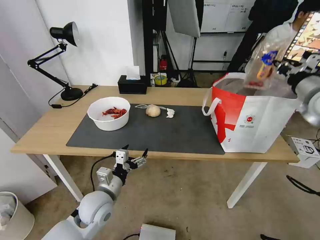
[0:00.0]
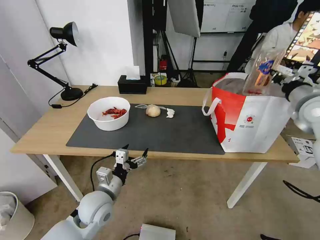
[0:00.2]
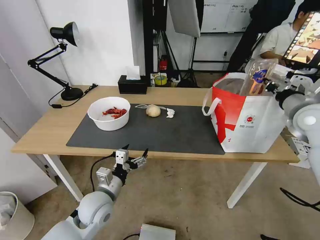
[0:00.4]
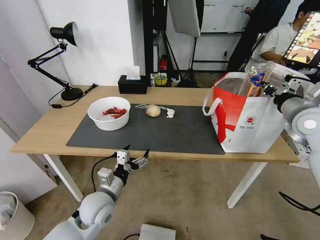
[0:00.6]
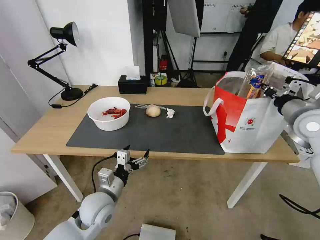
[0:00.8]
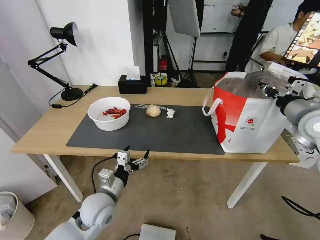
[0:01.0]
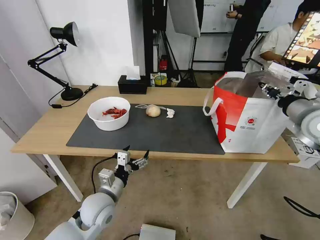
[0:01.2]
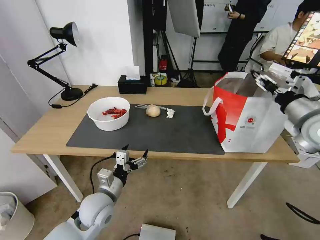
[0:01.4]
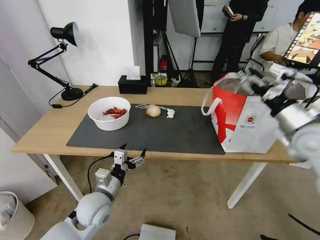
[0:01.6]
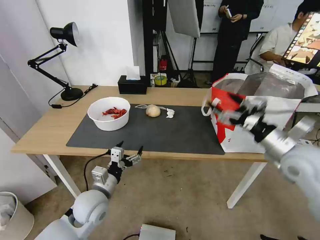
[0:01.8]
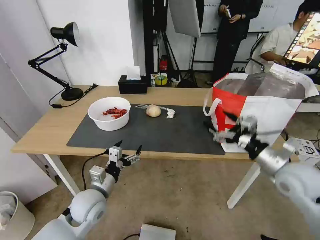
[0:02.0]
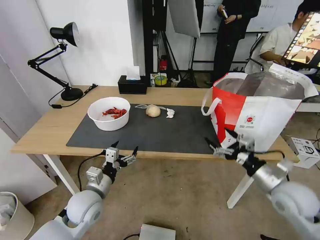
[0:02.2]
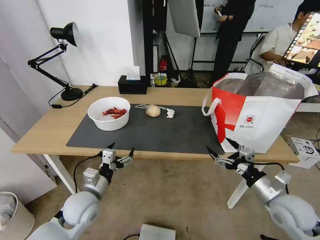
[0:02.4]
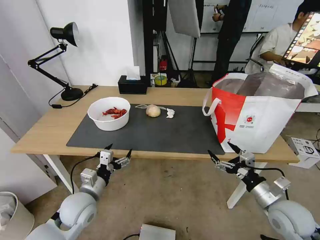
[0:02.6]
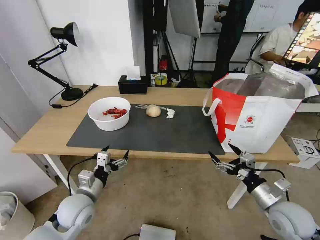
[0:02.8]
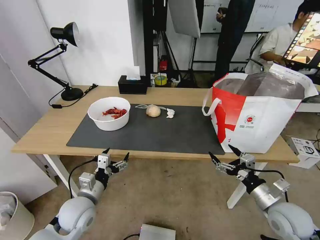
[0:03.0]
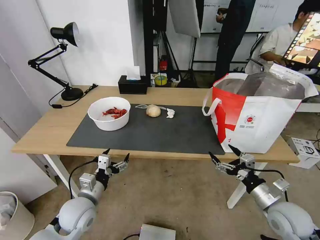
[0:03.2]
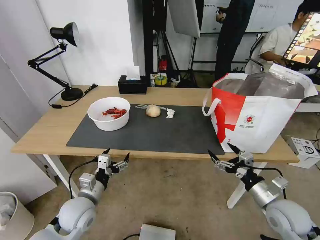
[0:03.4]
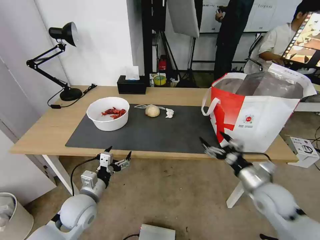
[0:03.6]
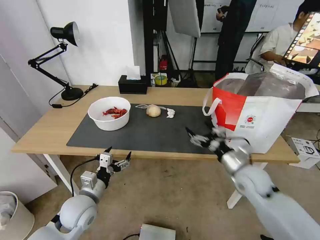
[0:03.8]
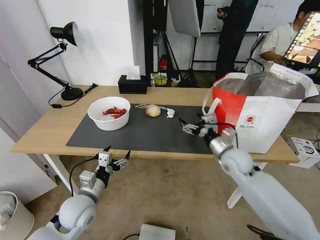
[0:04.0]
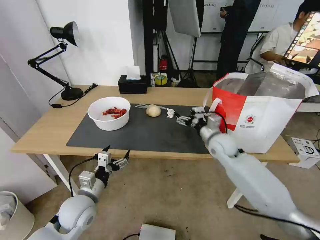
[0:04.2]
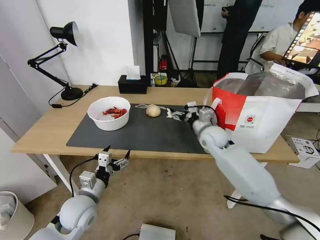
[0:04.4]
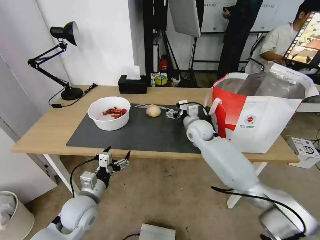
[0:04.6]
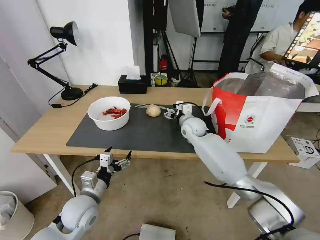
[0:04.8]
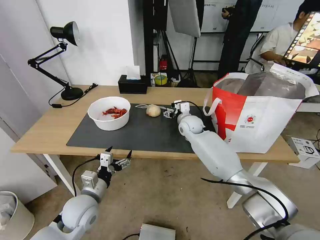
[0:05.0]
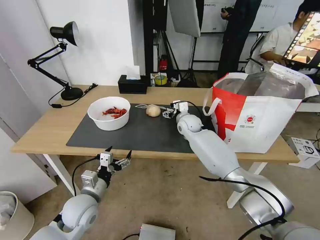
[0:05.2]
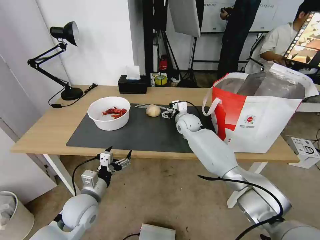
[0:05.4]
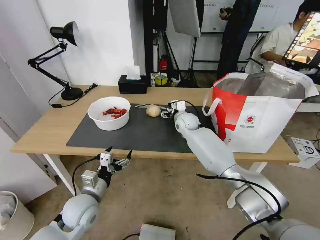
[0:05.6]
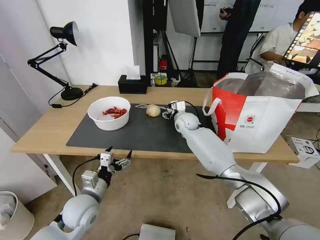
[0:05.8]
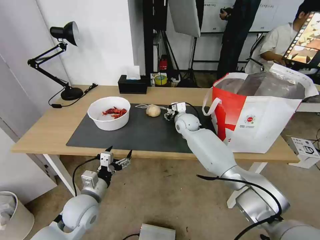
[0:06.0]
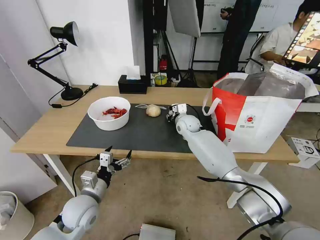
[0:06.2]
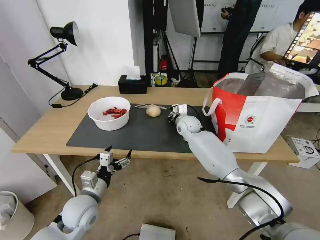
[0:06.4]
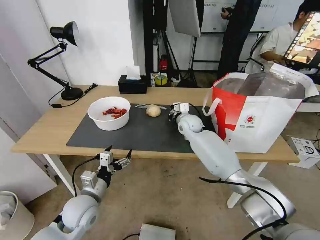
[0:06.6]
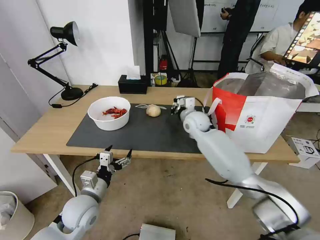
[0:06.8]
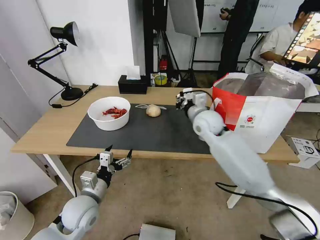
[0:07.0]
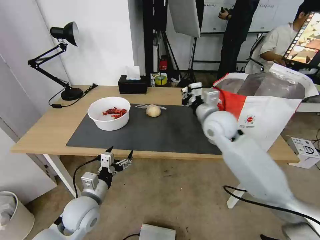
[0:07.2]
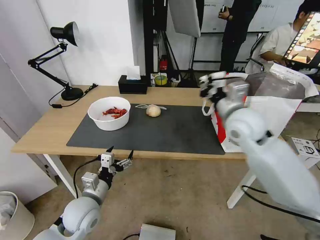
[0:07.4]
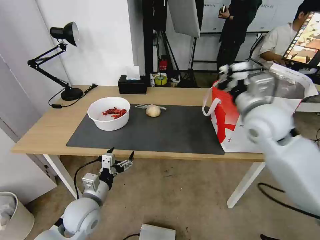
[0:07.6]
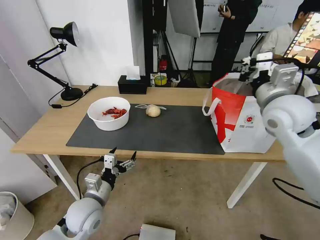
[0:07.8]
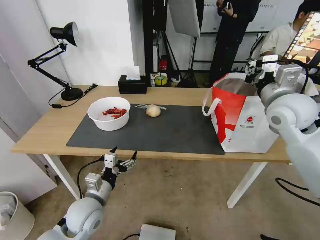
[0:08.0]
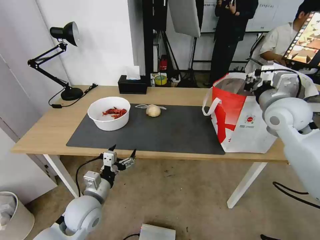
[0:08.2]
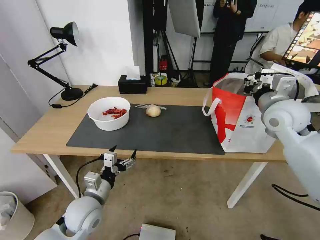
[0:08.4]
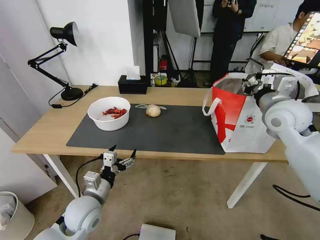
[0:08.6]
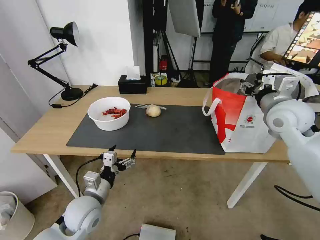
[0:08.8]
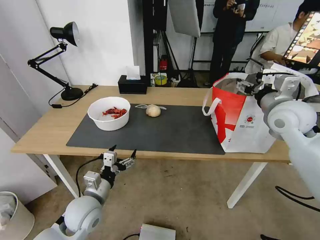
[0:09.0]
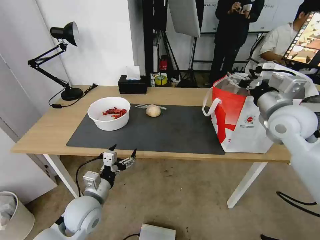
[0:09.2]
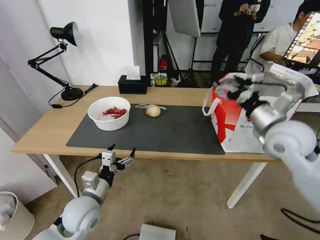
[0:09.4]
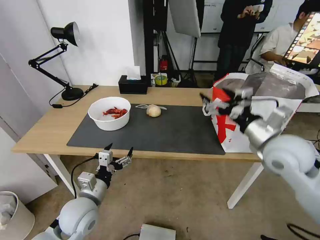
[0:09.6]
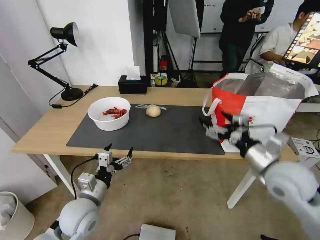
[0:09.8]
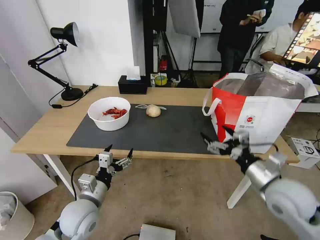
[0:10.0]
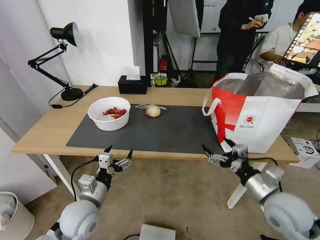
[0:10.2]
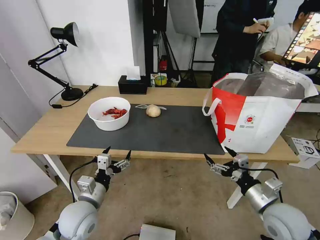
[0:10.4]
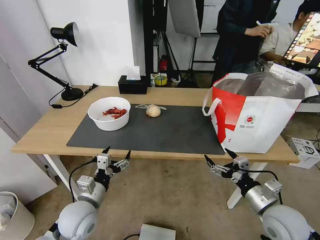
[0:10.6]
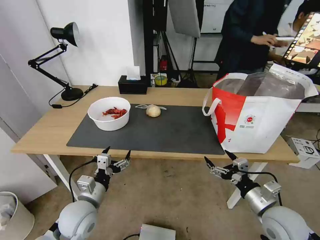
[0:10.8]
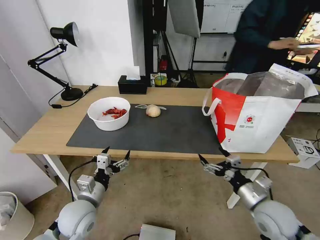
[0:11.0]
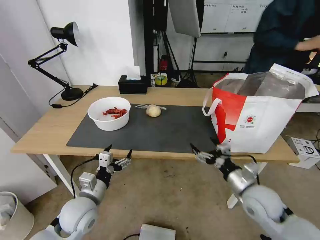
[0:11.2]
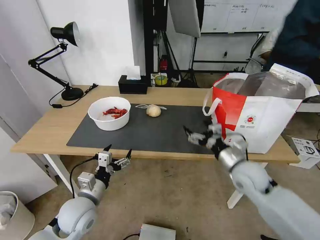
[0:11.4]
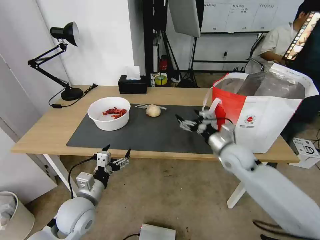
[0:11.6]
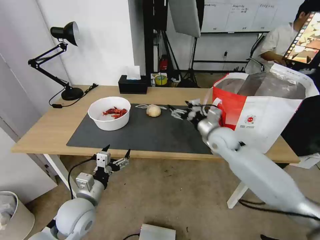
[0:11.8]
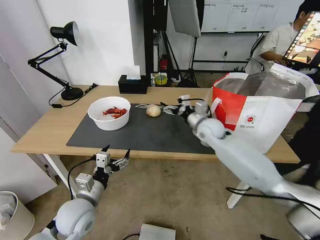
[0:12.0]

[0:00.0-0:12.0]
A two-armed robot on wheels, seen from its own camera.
Task of the whole recording: Pick up the trash from the table and place it into the takeout bag.
0:00.0 to 0:01.6: The right gripper travels backward, downward and to the left by about 10 cm, and opens up.
0:01.6 to 0:03.0: The left gripper is displaced to the left by about 5 cm, while the right gripper shifts approximately 25 cm downward and backward.
0:03.0 to 0:04.4: The right gripper moves forward and to the left, some 30 cm.
0:04.4 to 0:06.0: The right gripper shifts approximately 10 cm forward and to the left, and closes up.
0:06.0 to 0:07.6: The right gripper travels upward, backward and to the right by about 30 cm, and closes.
0:07.6 to 0:09.0: The right gripper is displaced to the right by about 5 cm, and opens up.
0:09.0 to 0:10.4: The right gripper travels downward and backward by about 30 cm.
0:10.4 to 0:12.0: The right gripper is displaced forward and to the left by about 30 cm.

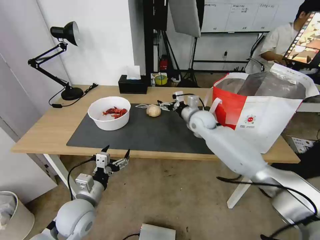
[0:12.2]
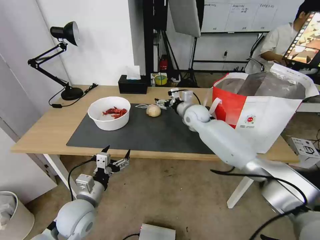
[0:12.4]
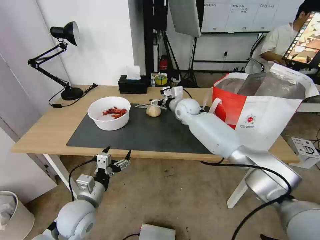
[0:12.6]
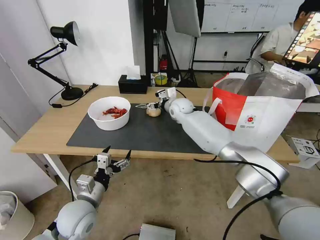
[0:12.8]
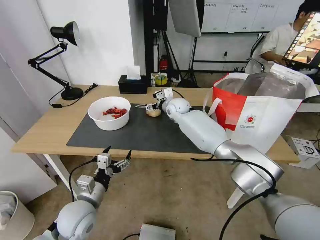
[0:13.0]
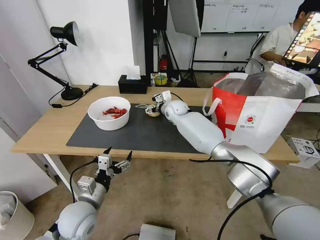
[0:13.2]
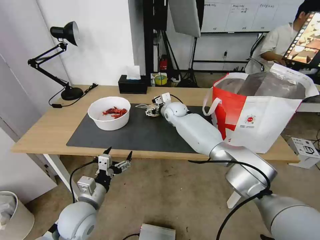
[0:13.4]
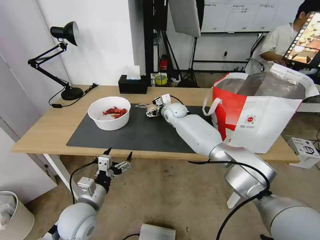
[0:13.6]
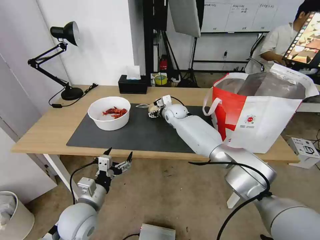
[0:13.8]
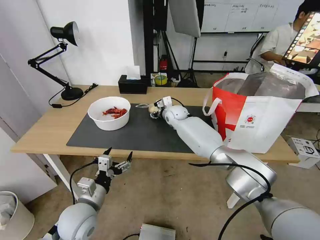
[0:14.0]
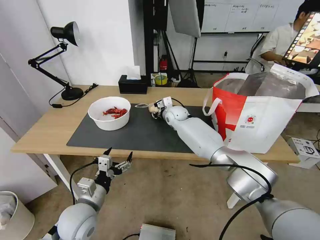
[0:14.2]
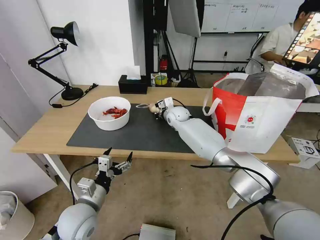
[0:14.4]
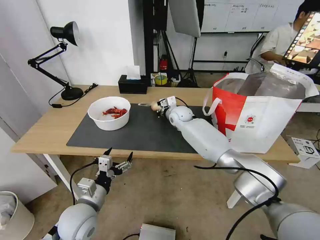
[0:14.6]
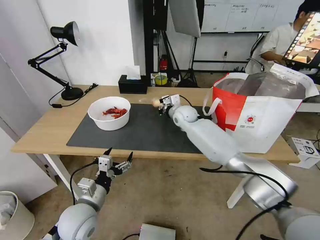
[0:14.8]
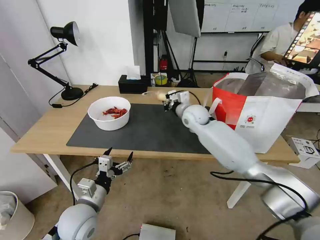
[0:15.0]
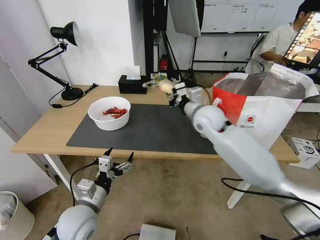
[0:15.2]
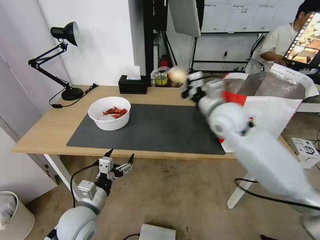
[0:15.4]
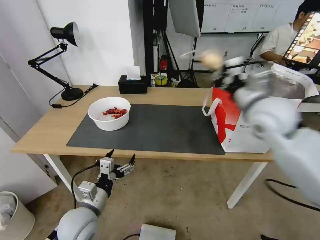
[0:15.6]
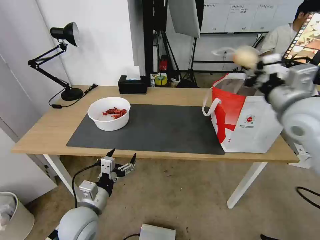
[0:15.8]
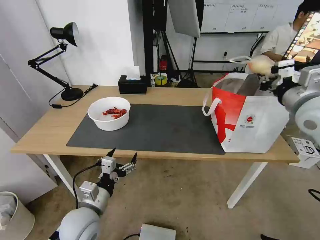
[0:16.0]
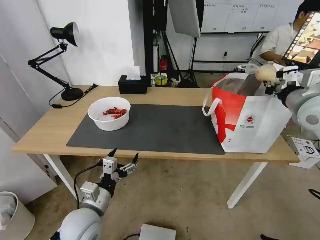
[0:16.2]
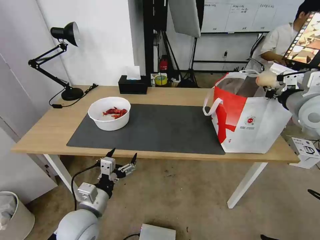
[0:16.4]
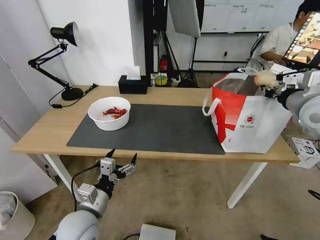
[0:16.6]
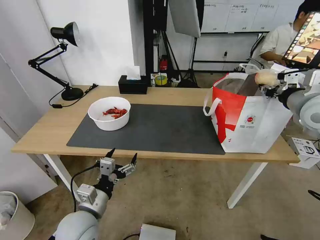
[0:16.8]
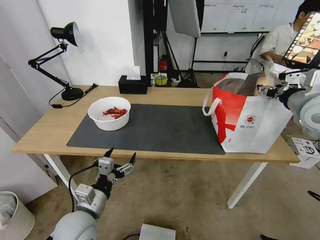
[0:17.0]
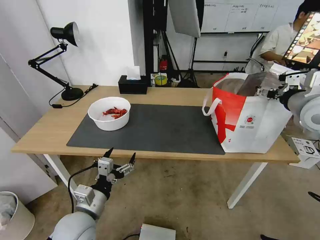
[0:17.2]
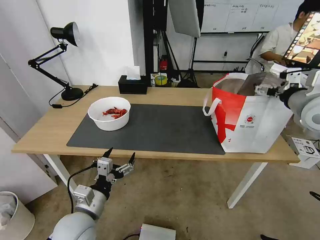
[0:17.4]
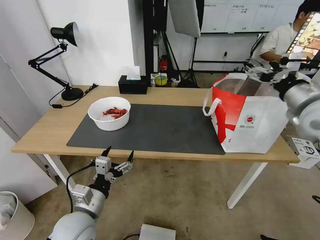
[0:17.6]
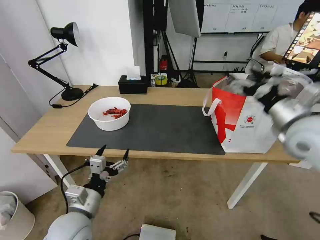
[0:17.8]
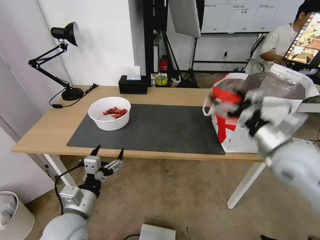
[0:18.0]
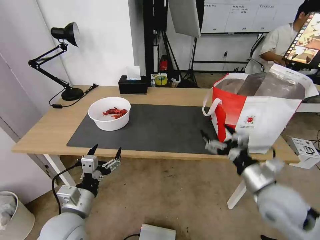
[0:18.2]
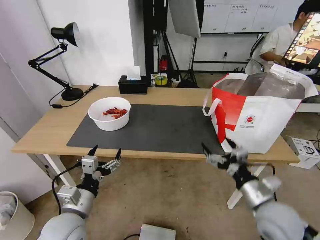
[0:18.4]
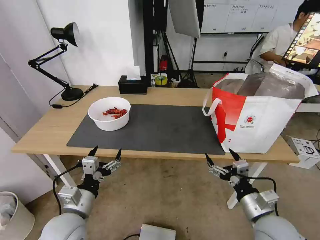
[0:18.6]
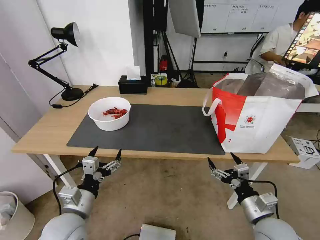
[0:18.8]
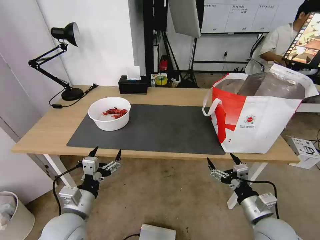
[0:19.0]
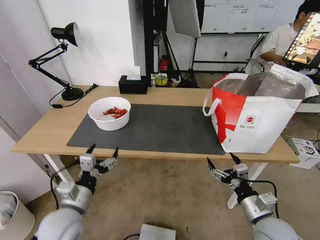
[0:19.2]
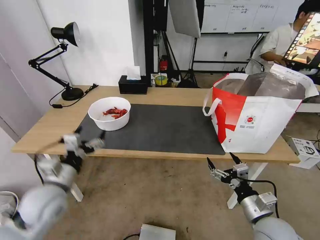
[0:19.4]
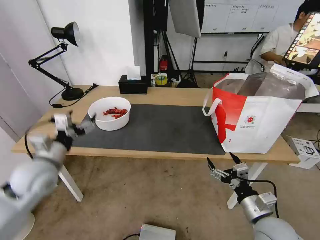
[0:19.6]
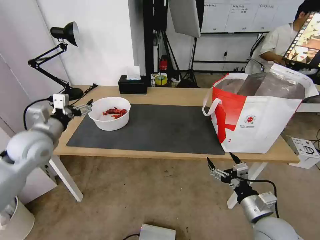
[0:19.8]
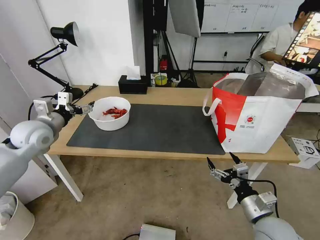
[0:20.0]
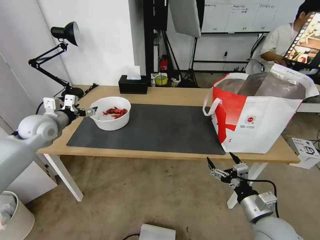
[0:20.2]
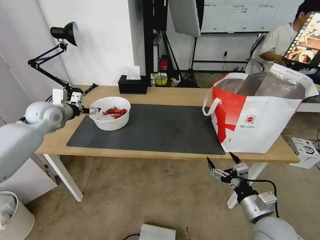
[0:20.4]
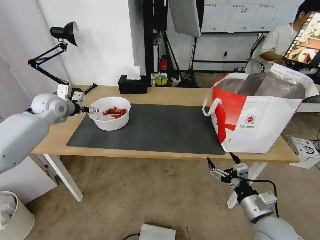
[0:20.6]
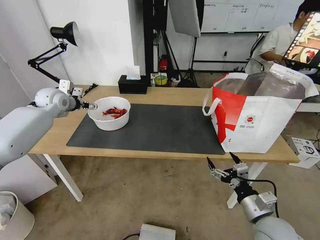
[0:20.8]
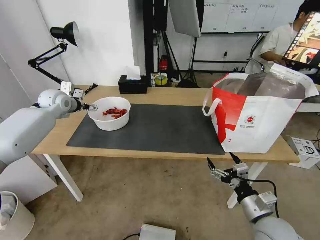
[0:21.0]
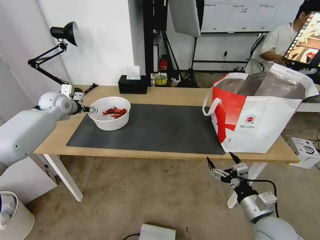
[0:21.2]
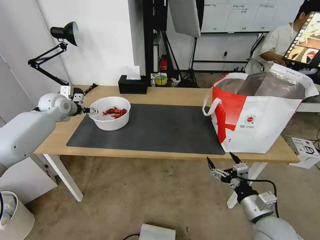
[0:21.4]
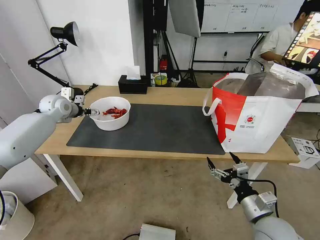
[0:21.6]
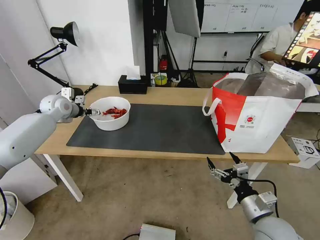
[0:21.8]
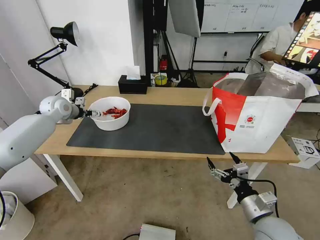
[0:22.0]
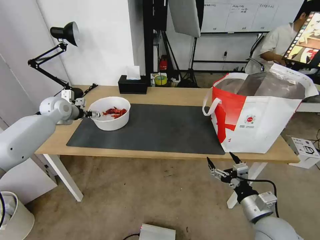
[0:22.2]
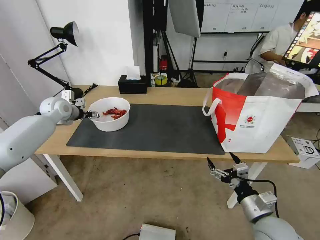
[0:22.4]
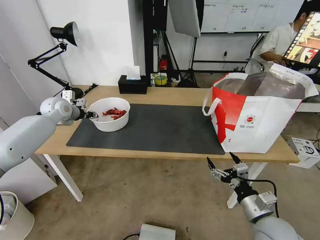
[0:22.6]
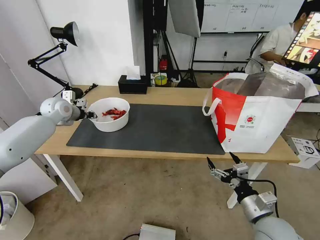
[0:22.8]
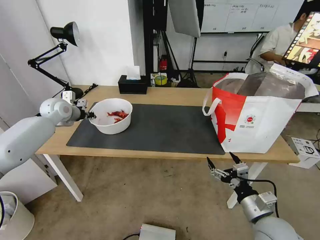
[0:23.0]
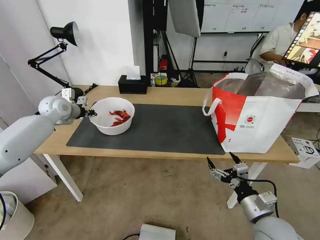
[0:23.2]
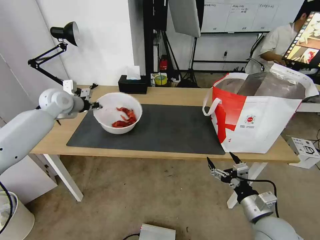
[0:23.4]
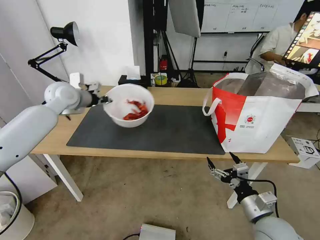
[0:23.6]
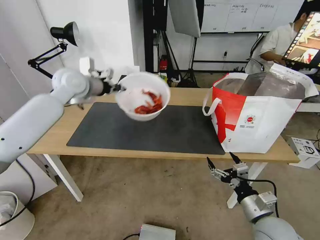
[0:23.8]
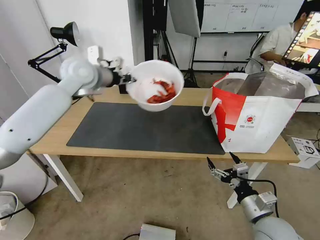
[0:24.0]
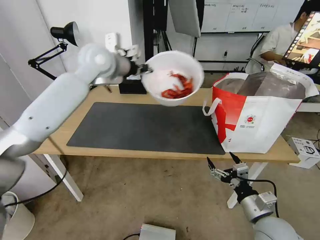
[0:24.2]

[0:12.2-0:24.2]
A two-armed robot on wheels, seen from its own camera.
Task of the whole recording: Pick up the trash from the table and place it into the takeout bag.
0:12.2 to 0:13.8: The right gripper travels to the left and forward by some 10 cm.
0:13.8 to 0:15.2: The right gripper shifts approximately 20 cm backward, upward and to the right, and closes.
0:15.2 to 0:16.6: The right gripper heads to the right and upward, covering about 25 cm.
0:16.6 to 0:18.2: The right gripper is displaced downward, backward and to the left by approximately 25 cm, and opens its fingers.
0:18.2 to 0:19.8: The right gripper heads downward and backward, covering approximately 10 cm; the left gripper shifts roughly 25 cm forward, upward and to the left.
0:19.8 to 0:21.2: The left gripper is displaced forward by approximately 20 cm.
0:21.2 to 0:22.6: The left gripper closes.
0:22.6 to 0:24.2: The left gripper is displaced to the right and upward by about 30 cm, and closes its fingers.
